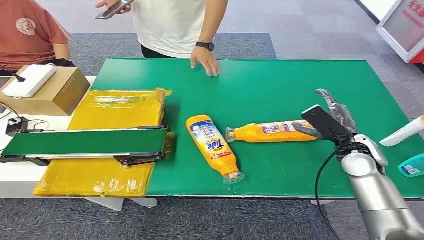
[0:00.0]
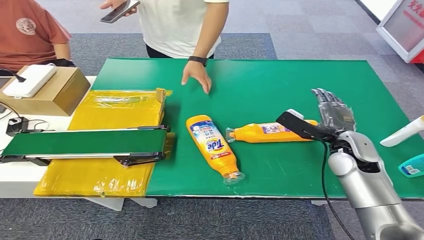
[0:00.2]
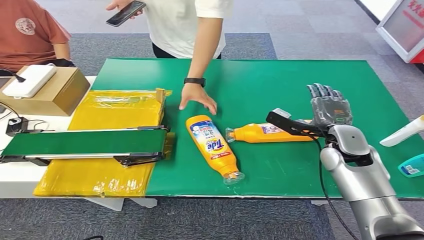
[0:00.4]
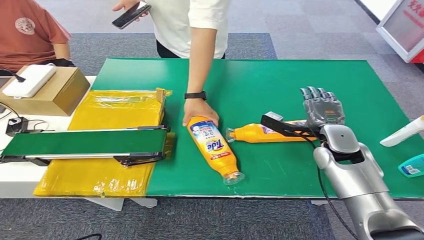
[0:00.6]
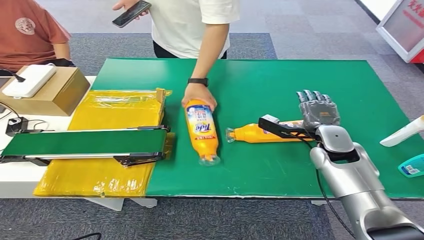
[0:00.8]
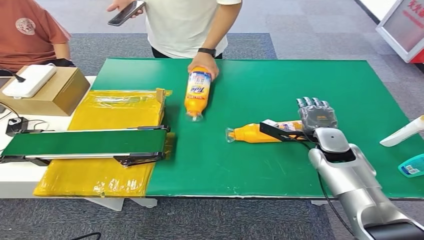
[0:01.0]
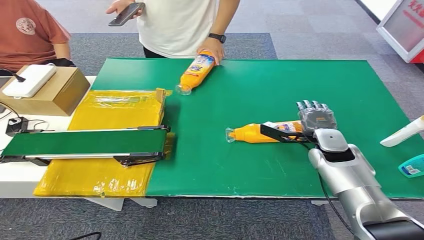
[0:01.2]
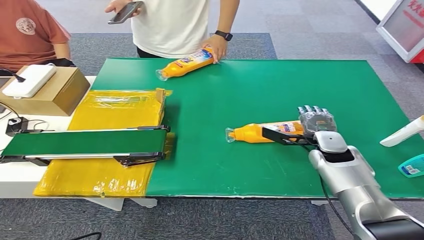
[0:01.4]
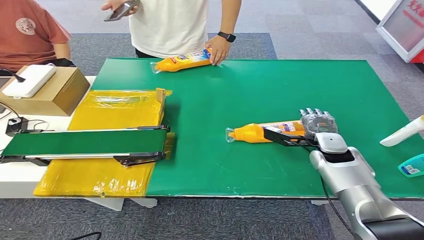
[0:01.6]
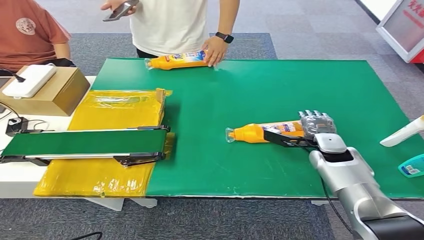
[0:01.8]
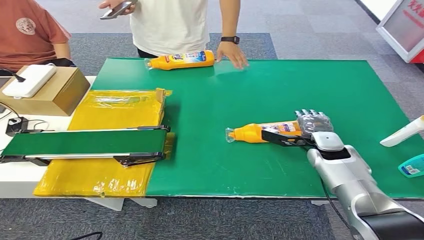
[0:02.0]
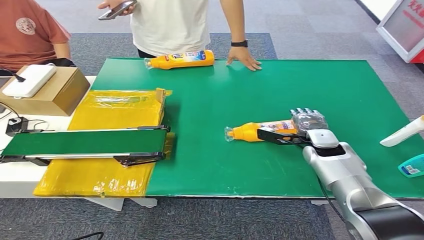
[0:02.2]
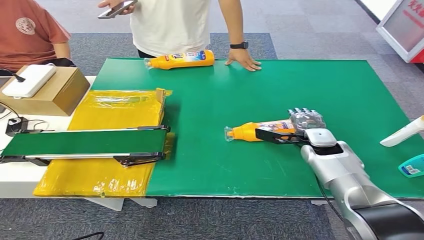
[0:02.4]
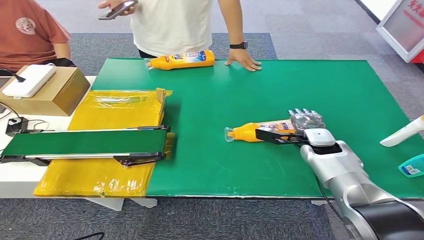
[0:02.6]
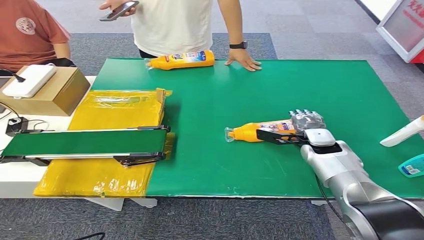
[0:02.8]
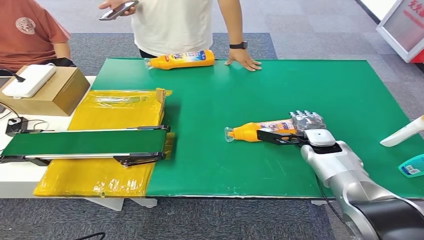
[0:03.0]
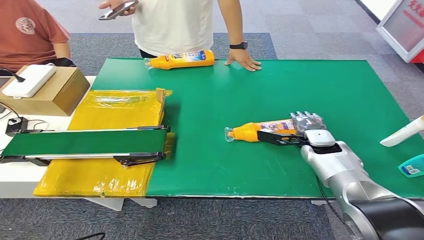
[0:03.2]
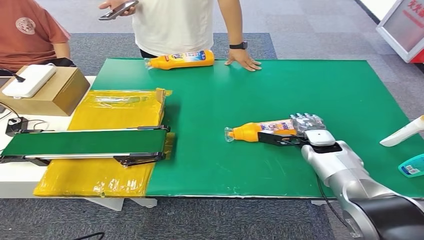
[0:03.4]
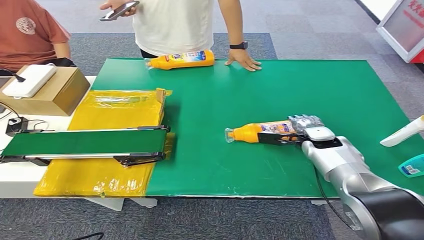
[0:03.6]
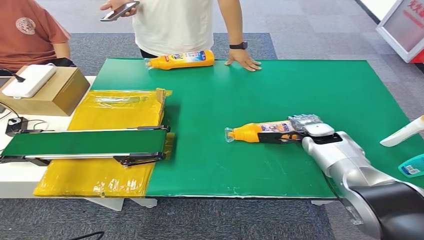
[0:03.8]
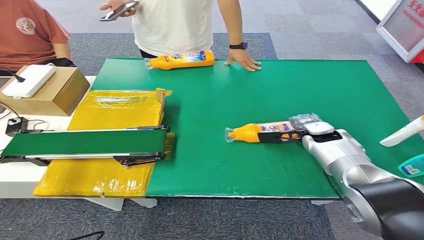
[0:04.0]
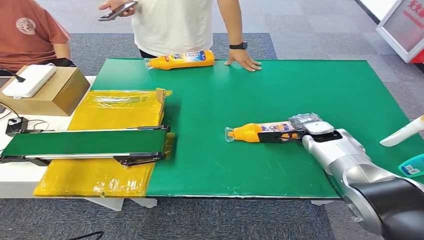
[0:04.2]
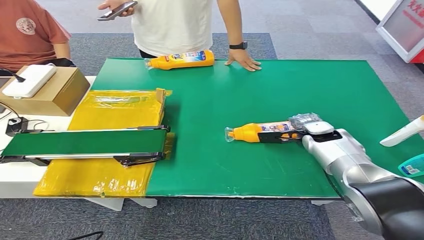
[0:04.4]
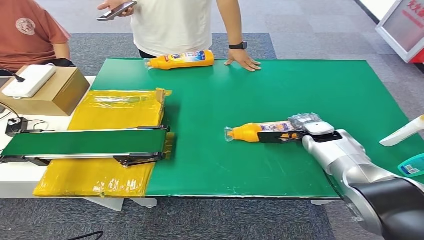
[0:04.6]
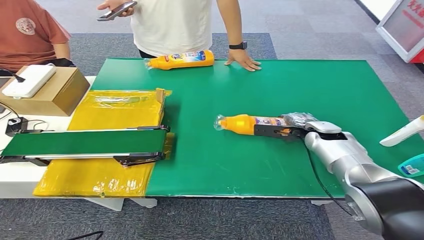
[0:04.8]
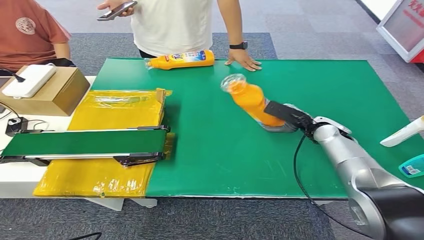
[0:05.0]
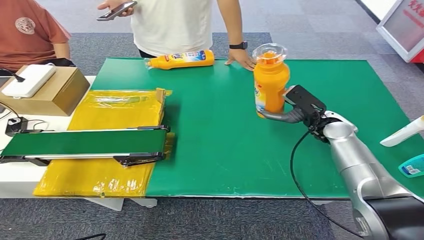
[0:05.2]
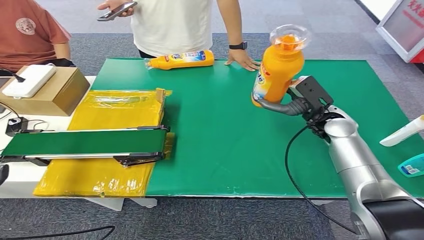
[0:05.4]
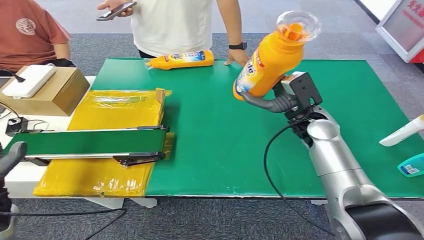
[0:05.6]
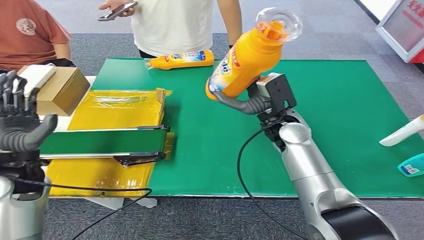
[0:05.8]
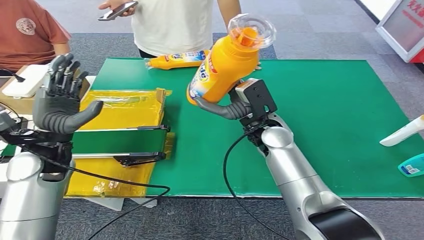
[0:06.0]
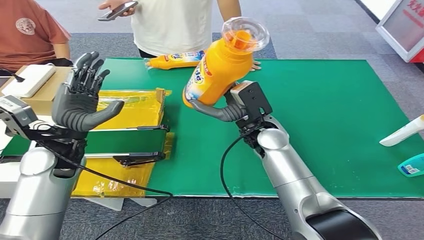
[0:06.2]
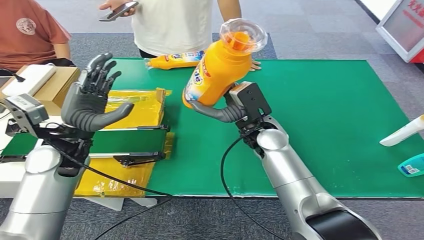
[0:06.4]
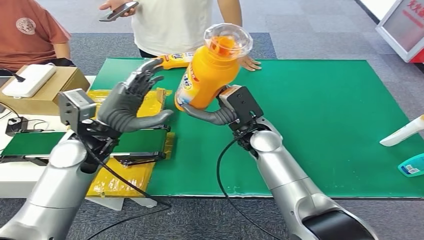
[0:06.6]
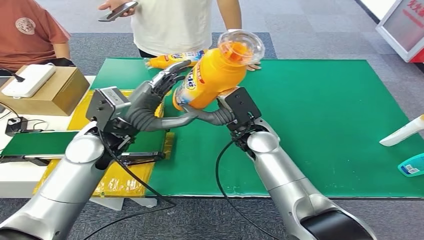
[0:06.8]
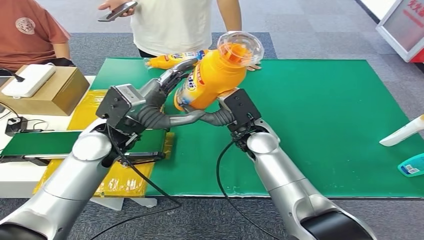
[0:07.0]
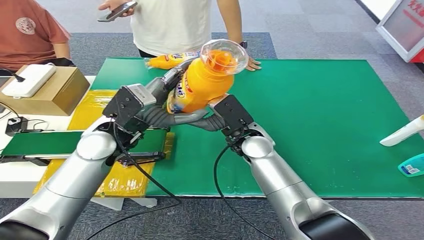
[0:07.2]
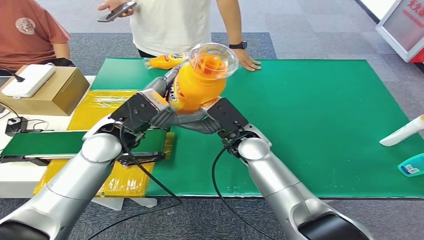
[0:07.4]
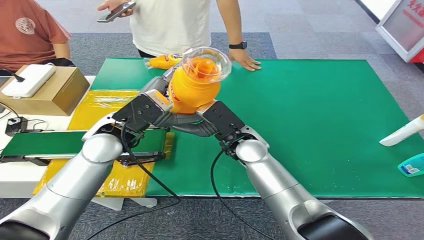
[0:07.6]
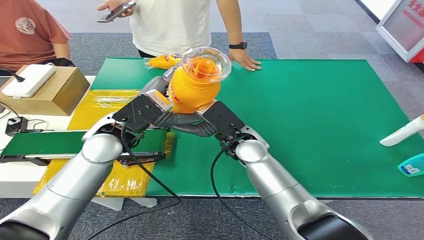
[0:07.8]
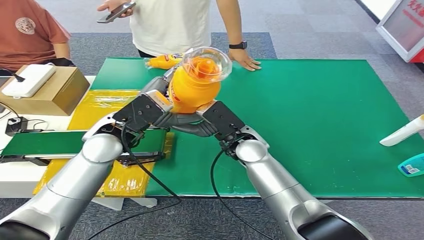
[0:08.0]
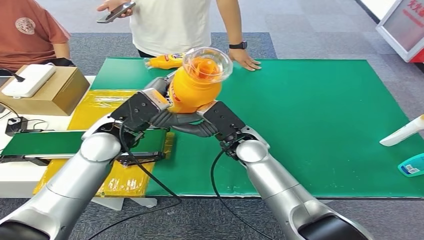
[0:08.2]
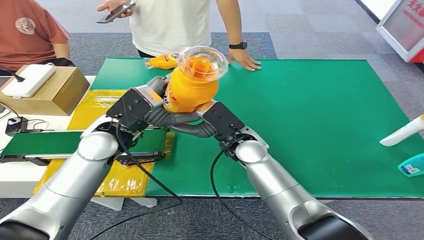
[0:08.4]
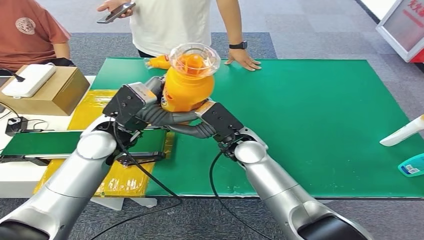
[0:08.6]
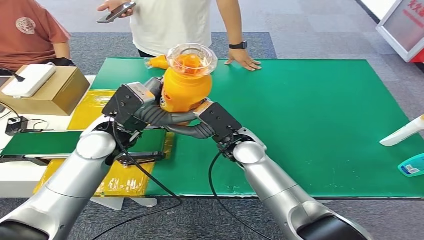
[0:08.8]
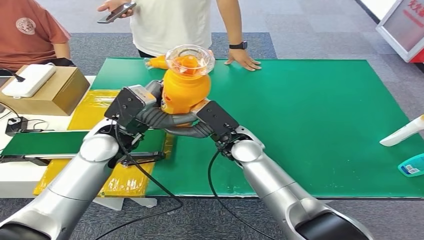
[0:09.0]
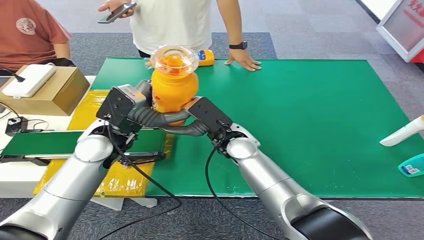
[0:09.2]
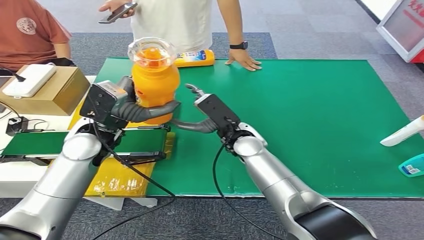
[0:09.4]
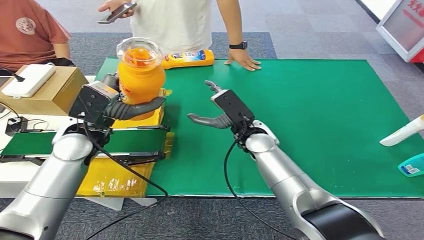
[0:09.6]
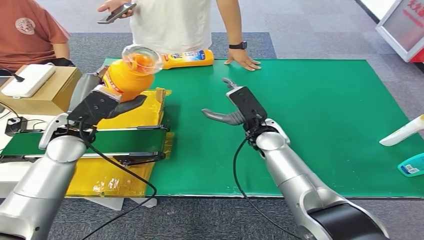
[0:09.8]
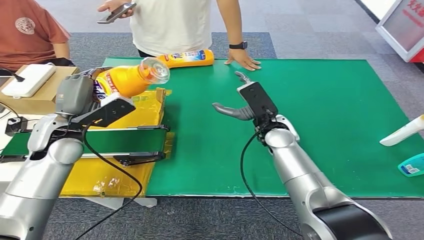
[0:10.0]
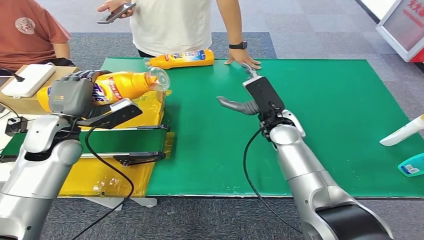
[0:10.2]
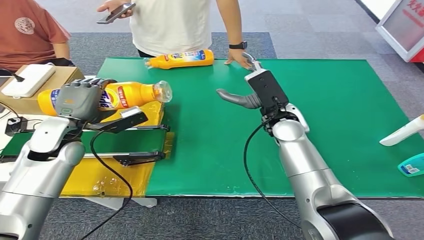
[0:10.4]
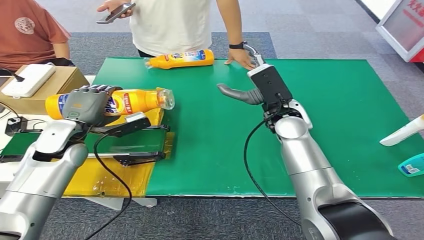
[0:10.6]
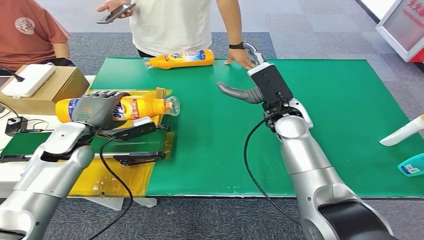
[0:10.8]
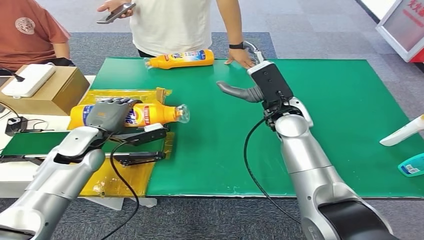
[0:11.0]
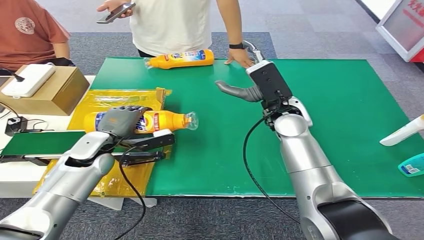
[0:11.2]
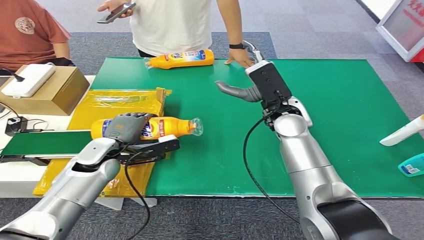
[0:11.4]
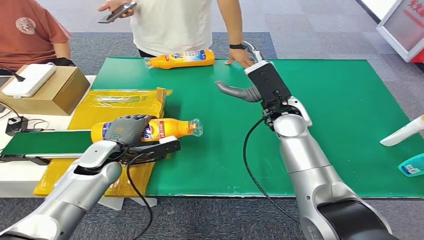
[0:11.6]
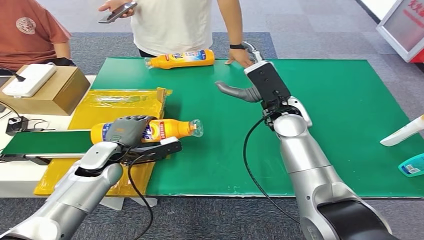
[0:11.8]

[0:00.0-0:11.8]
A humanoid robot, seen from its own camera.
Step, 0:00.0 to 0:05.2: Pick up the bottle from the table.
0:01.4 to 0:03.0: The hands move only a little.
0:03.0 to 0:04.4: The hands make only small movements.
0:07.4 to 0:08.8: The hands stay close to where they were, moving slightly.

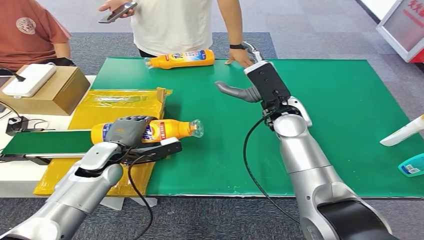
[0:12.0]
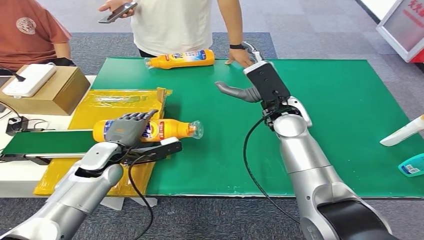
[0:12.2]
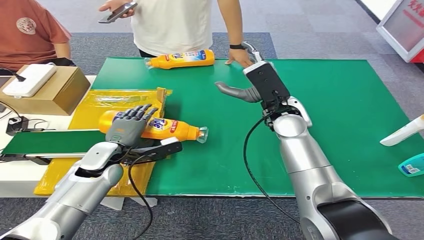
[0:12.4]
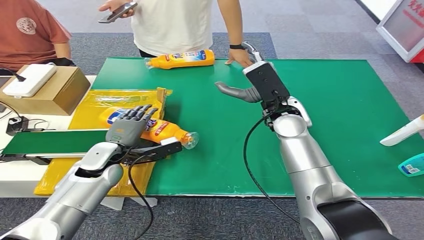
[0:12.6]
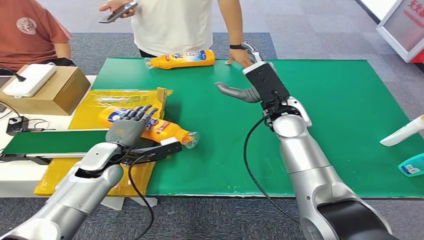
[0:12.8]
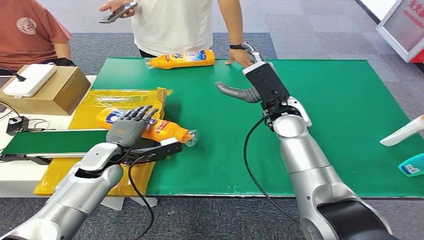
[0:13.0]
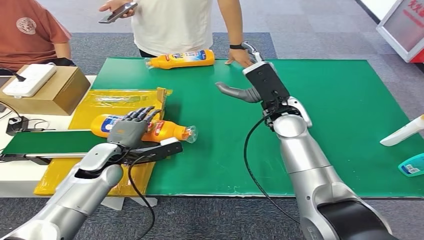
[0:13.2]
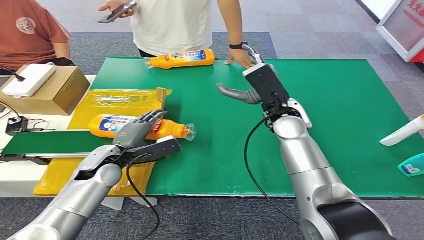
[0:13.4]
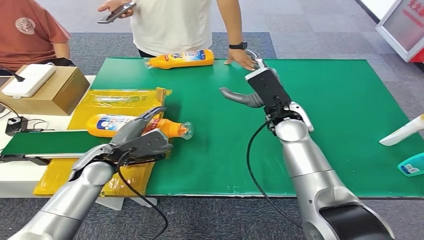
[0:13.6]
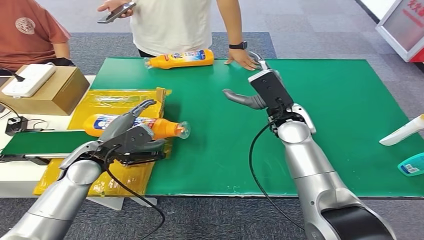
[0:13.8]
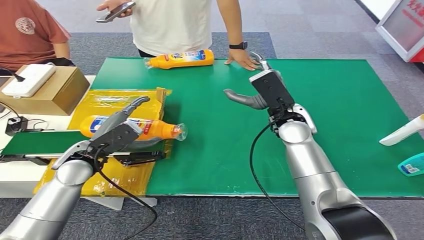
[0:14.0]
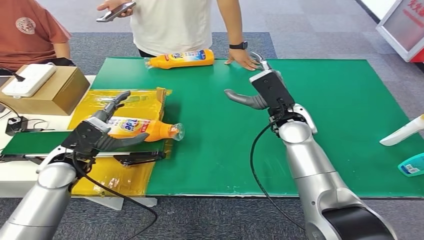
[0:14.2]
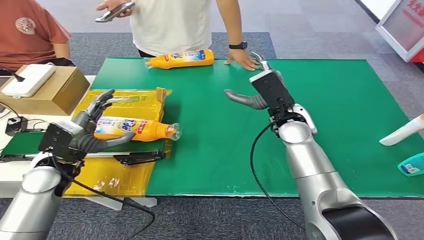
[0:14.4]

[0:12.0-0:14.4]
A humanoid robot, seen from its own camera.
Step, 0:12.0 to 0:14.2: Turn the bottle to the front side.
0:12.0 to 0:13.2: Both hands stay put.
0:13.2 to 0:14.4: The left hand shifts about 10 cm to the left and upward.

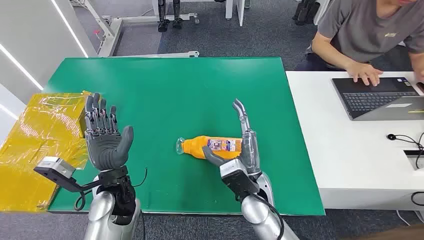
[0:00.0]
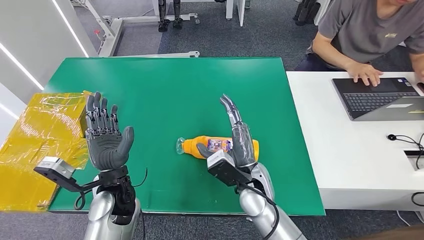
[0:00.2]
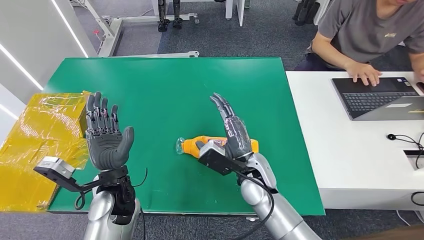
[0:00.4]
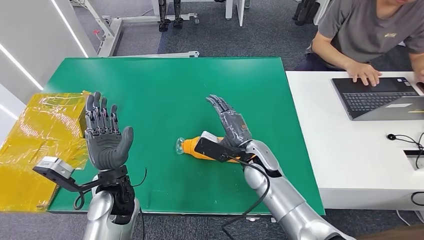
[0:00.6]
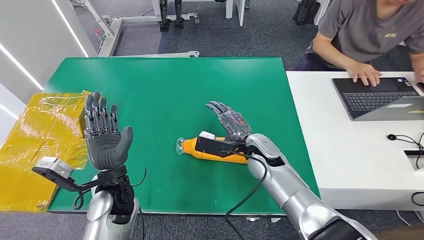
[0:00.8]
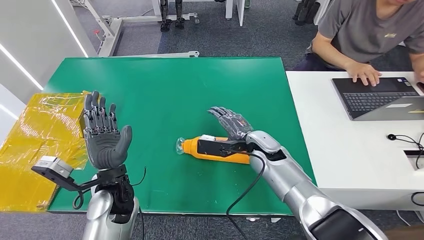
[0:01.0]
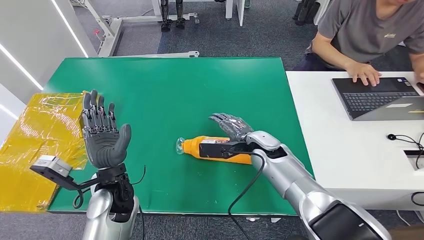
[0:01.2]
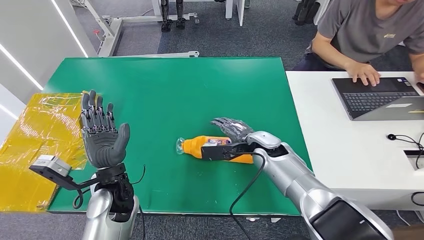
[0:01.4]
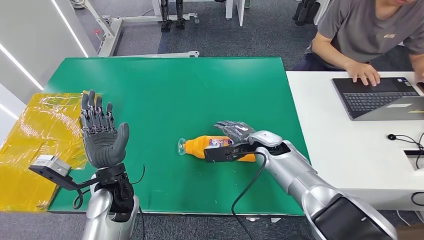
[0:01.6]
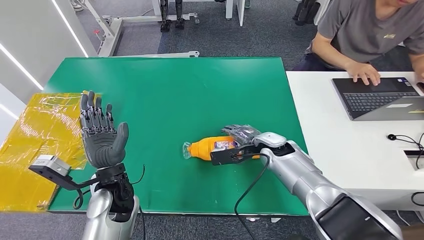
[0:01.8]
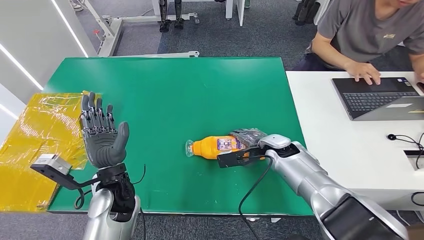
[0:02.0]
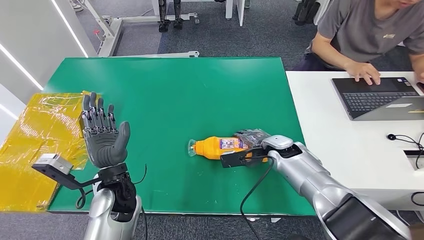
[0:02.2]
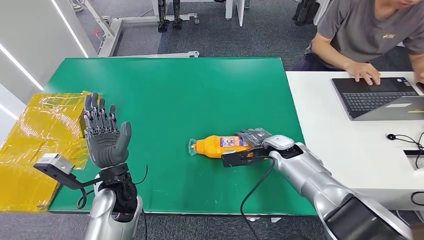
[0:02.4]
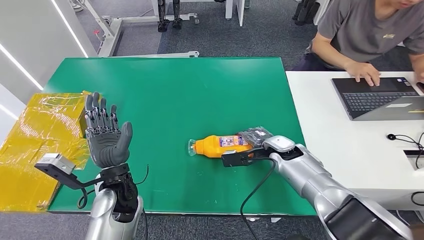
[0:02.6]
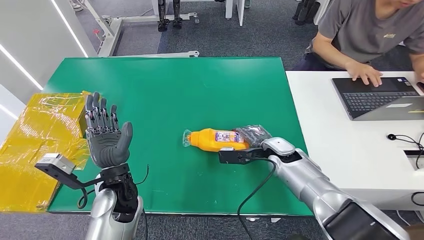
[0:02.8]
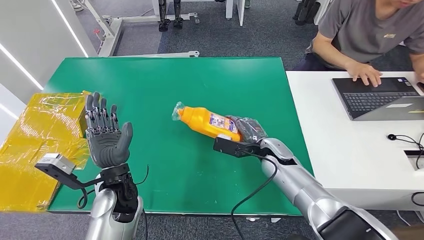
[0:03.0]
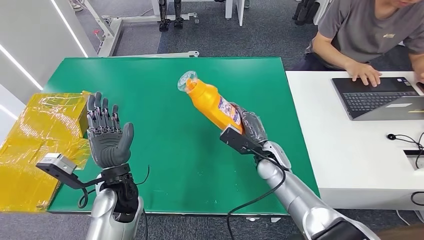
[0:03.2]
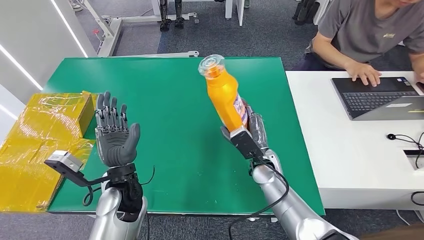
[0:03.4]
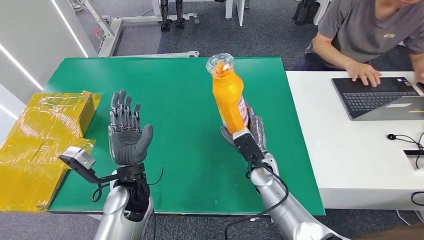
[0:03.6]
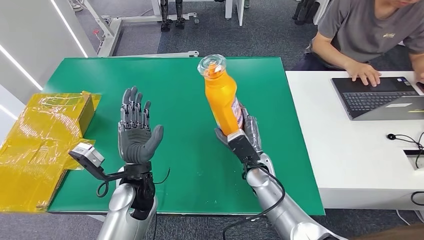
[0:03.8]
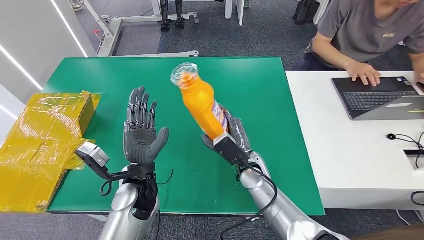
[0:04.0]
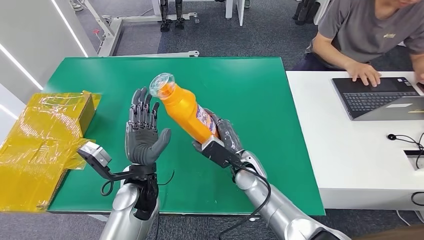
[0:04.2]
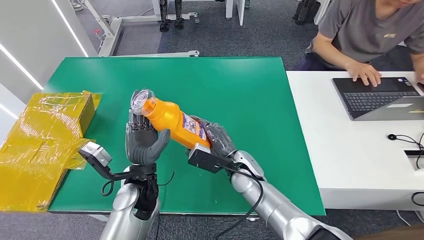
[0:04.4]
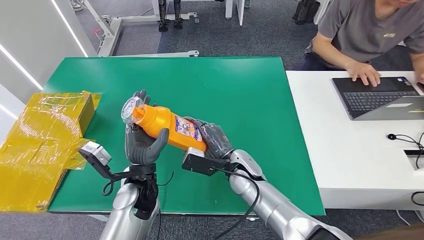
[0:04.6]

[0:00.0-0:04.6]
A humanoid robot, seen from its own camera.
Step, 0:00.0 to 0:04.0: Pick up the bottle from the table.
